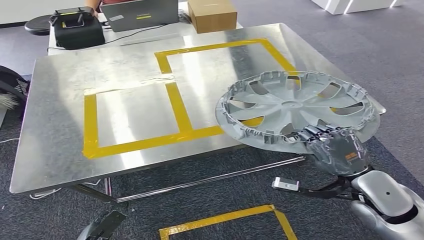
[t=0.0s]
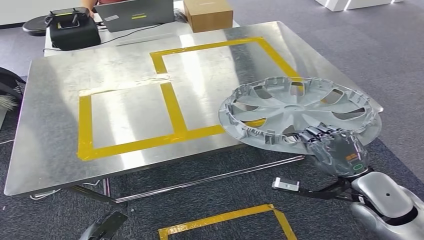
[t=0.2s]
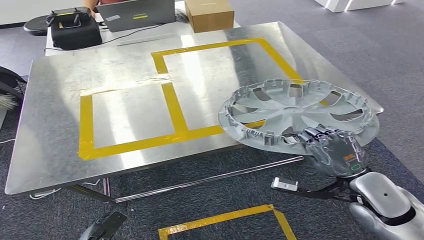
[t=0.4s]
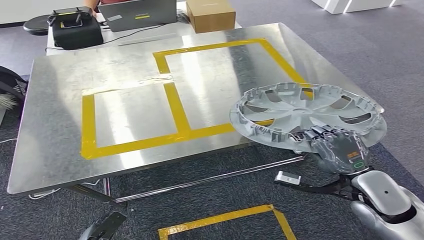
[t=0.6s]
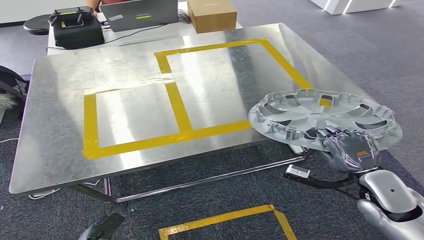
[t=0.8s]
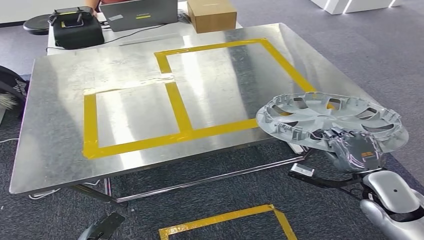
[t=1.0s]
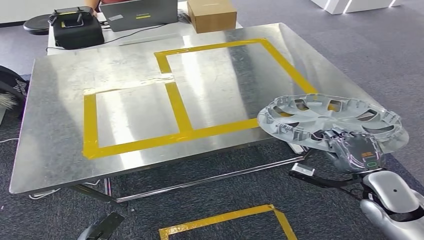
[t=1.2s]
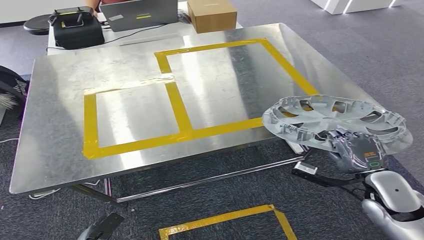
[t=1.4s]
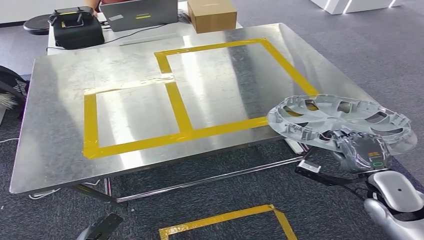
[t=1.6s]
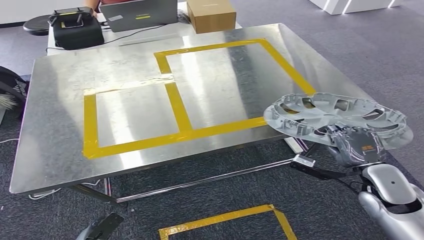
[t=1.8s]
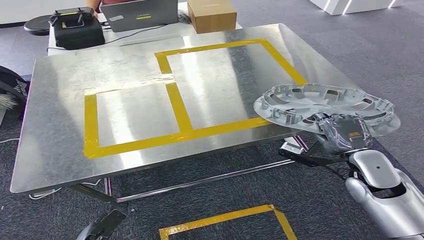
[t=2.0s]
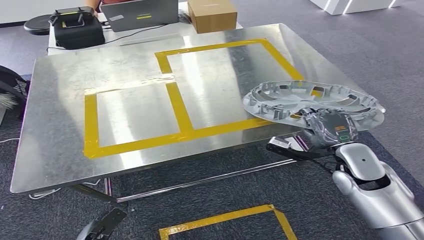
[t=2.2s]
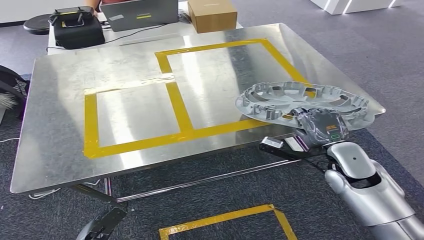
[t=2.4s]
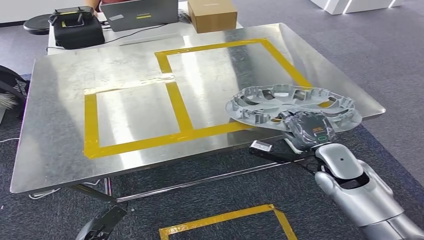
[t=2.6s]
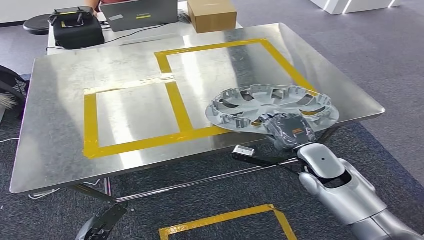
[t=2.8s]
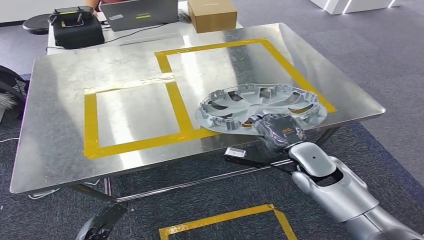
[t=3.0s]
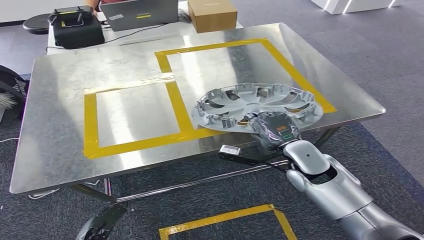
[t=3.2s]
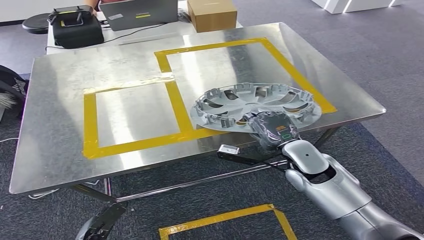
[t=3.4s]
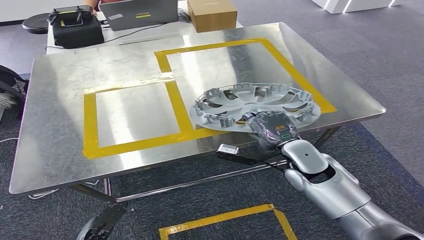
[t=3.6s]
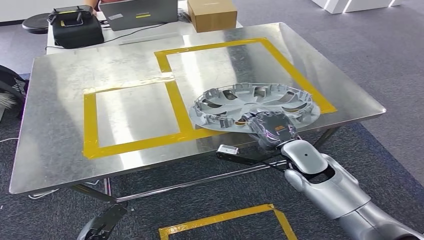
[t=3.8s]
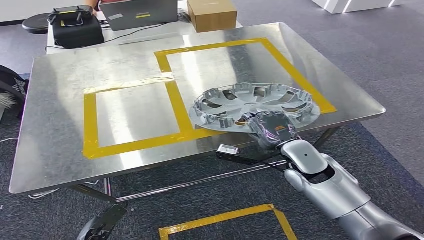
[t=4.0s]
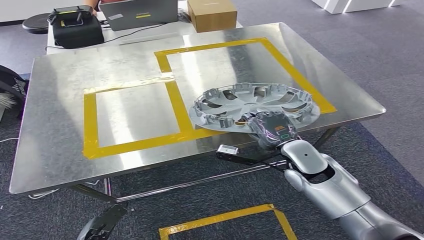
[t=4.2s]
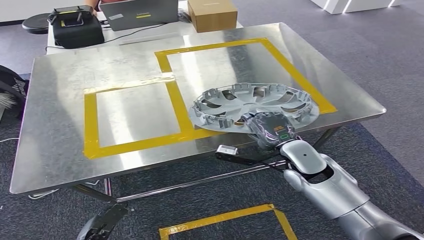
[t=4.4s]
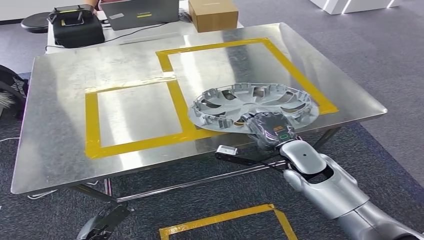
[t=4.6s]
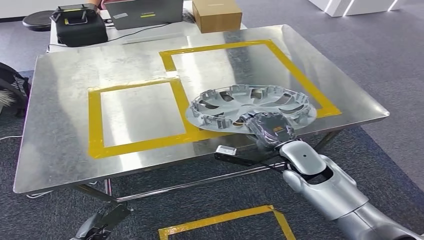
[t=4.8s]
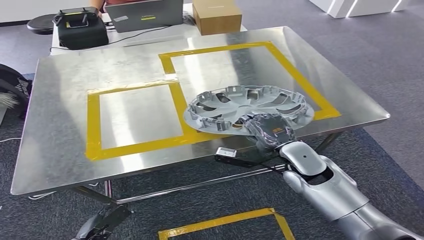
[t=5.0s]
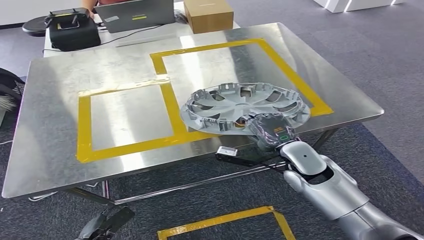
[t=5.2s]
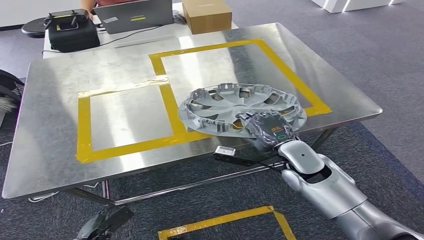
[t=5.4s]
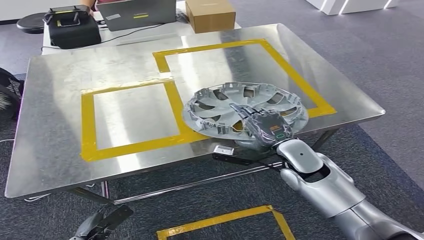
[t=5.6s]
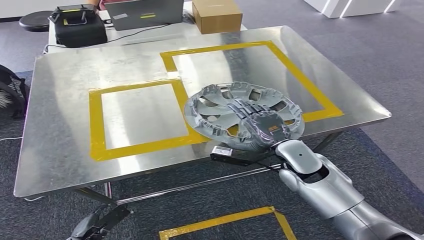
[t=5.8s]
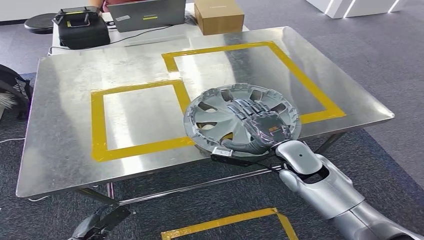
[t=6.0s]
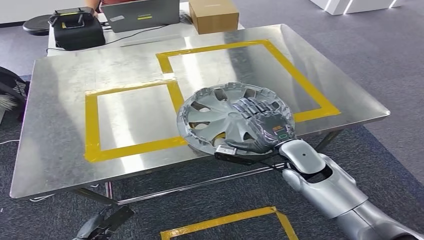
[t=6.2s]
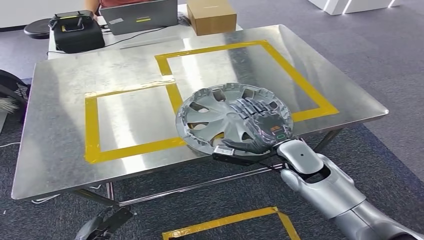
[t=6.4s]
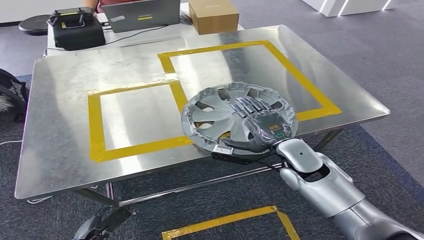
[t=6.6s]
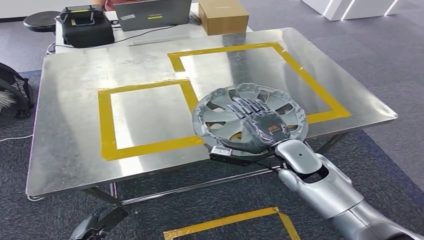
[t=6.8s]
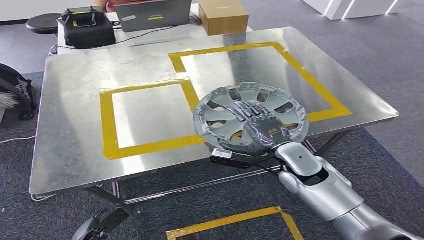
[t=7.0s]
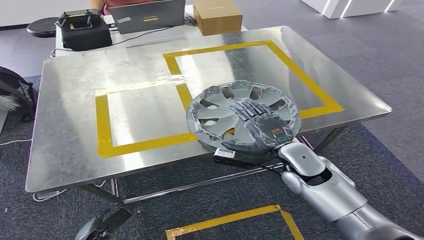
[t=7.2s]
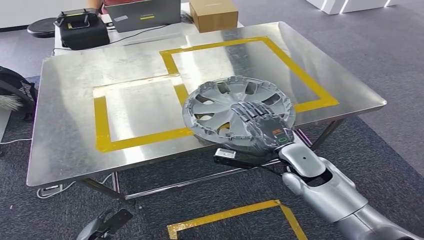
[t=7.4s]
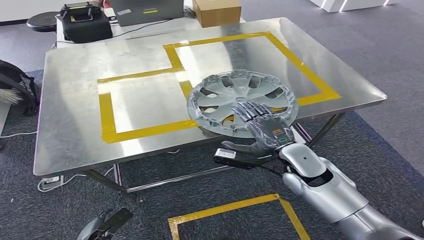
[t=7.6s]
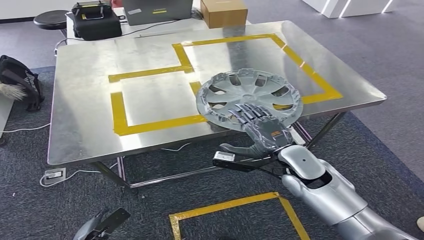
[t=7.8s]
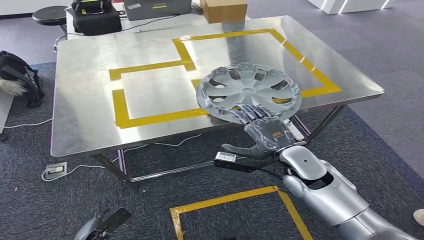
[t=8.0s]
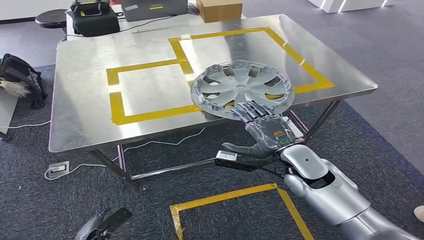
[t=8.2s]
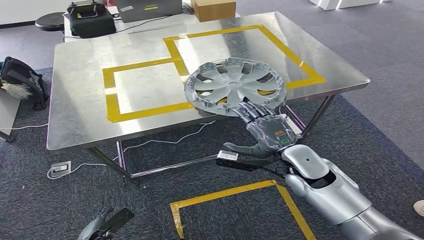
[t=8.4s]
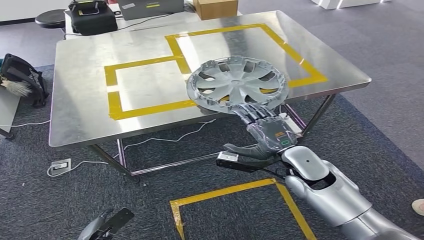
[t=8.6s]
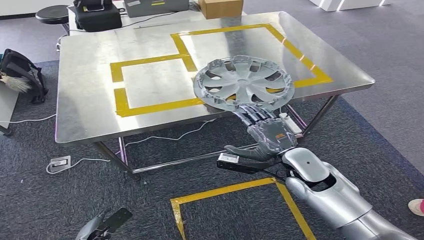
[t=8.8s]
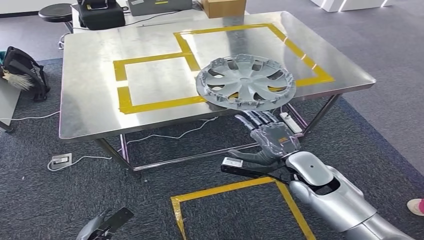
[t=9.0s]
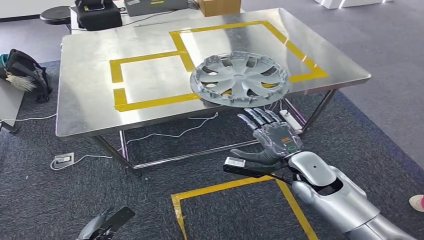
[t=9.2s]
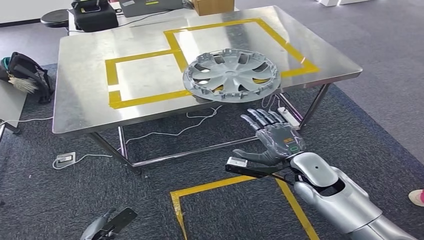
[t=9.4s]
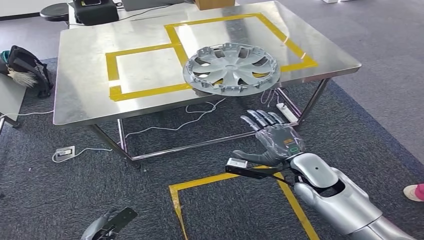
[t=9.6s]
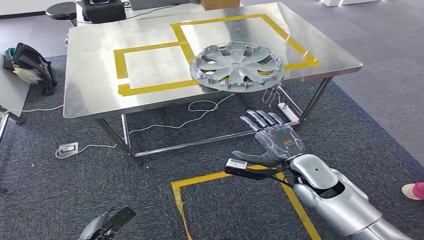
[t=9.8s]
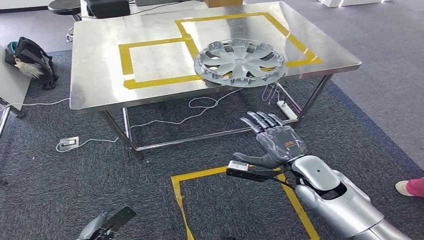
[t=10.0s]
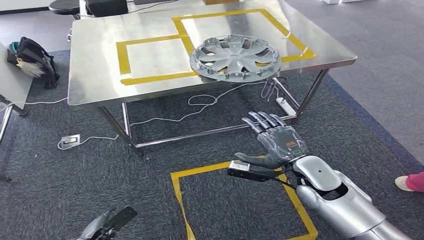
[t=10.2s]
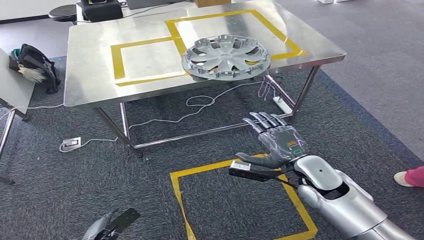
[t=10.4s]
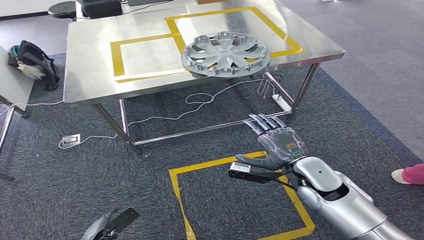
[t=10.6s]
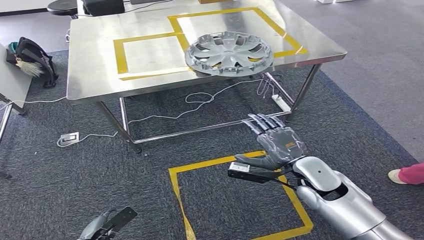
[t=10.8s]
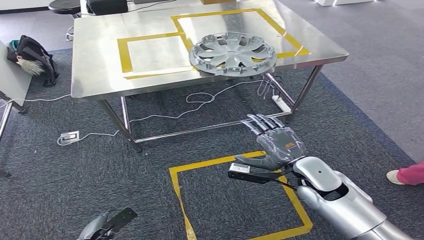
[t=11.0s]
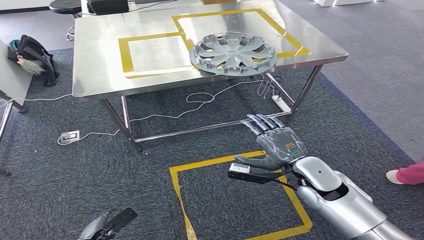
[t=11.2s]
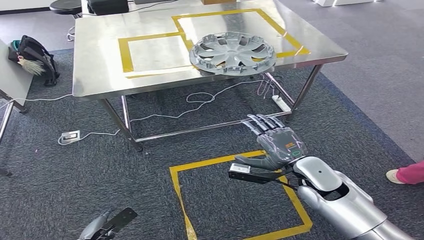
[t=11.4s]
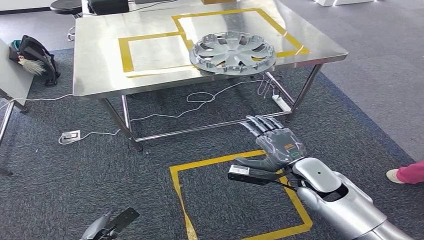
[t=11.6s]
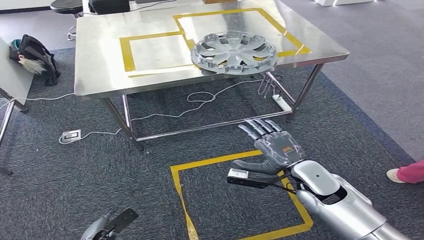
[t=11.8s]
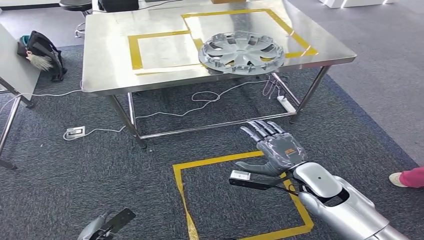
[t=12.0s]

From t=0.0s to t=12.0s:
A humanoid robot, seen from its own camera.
Step, from t=0.0s to t=7.6s: Insert the small parts into the corresponding holes on the workbench.
From t=0.0s to t=1.6s: The right hand goes roughly 5 cm to the right.
From t=1.6s to t=3.0s: The right hand shifts roughly 15 cm to the left and forward.
From t=3.0s to t=4.4s: The hands make only small movements.

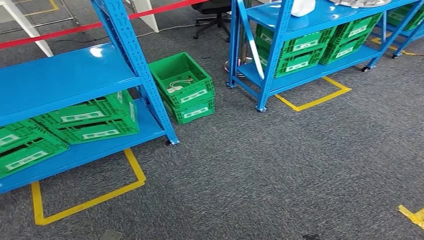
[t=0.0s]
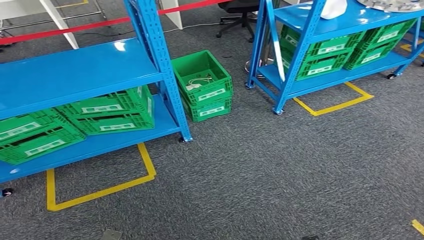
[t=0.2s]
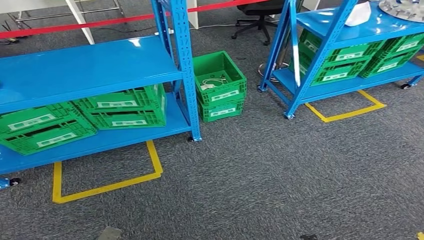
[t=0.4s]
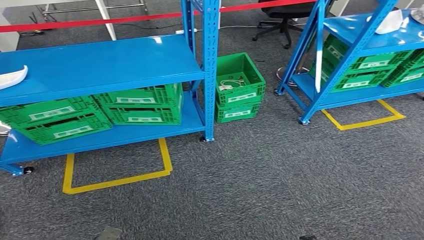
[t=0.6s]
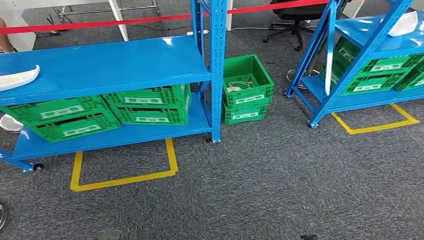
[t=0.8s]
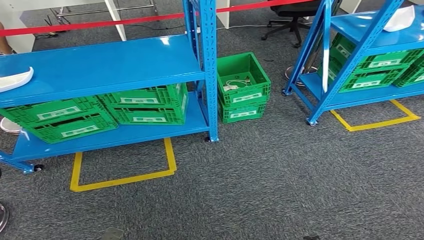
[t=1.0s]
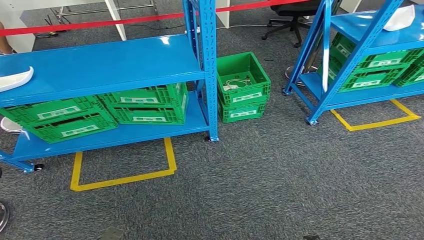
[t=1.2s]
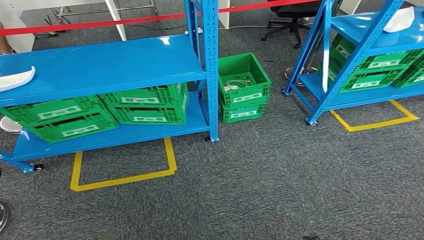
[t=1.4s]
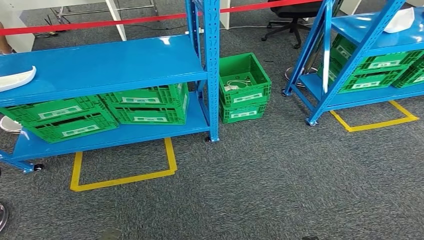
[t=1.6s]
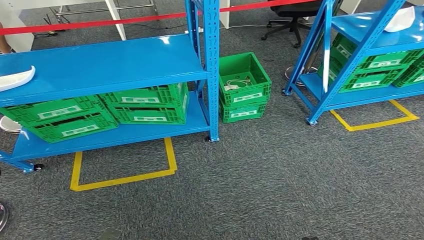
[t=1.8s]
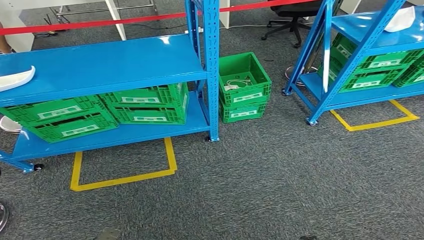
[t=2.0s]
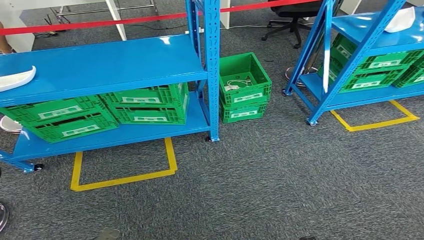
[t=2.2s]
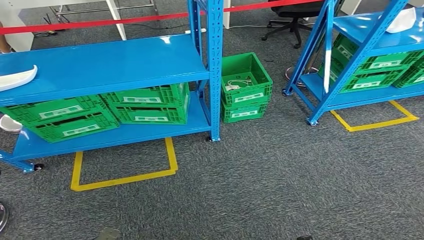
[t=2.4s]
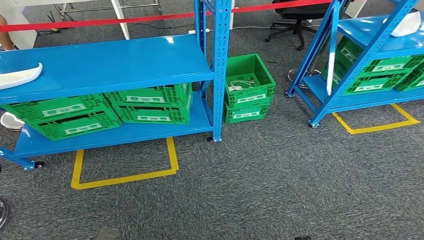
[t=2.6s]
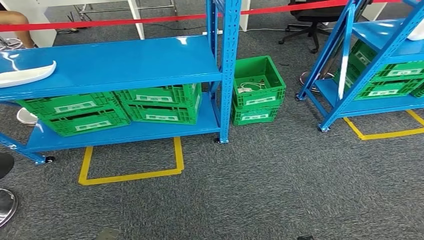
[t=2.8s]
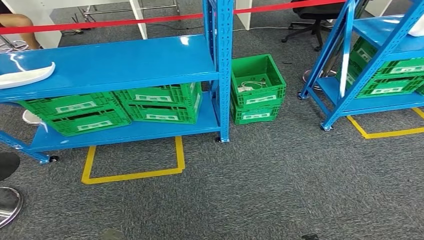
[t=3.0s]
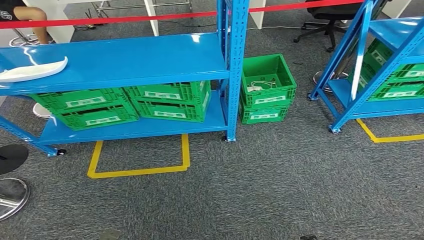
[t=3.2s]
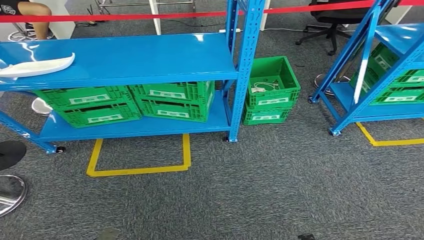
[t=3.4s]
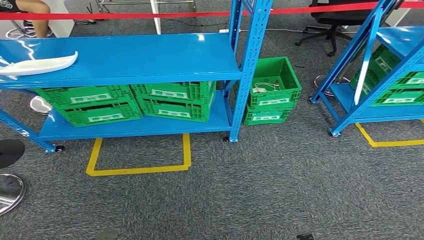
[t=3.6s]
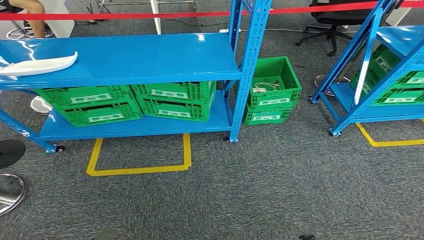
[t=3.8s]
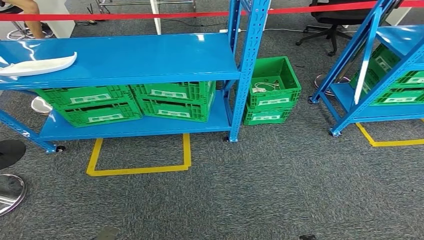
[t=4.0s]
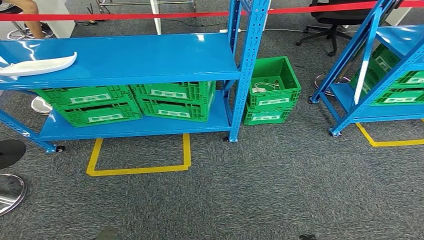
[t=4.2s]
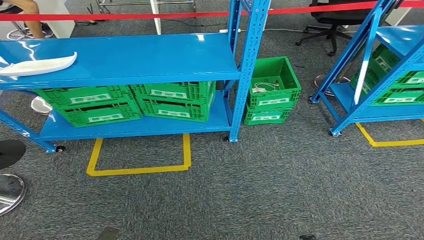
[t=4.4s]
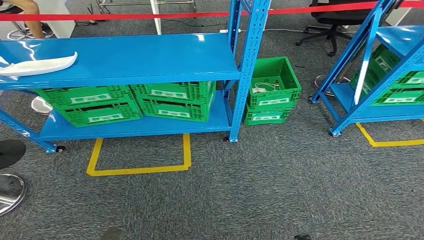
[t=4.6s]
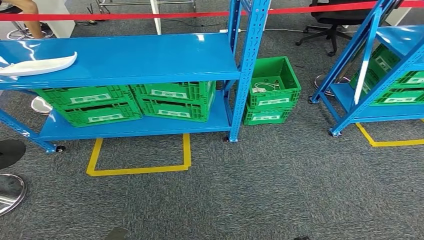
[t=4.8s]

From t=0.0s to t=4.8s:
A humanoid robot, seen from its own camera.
Step, from t=0.0s to t=4.8s: Move to the initial position at the workbench.
